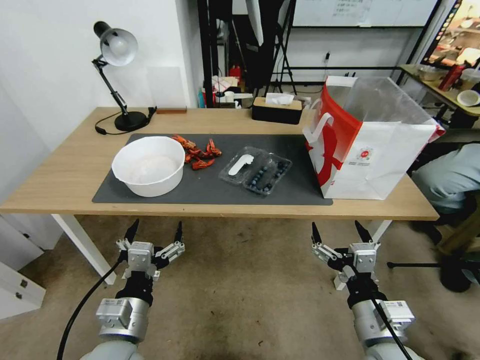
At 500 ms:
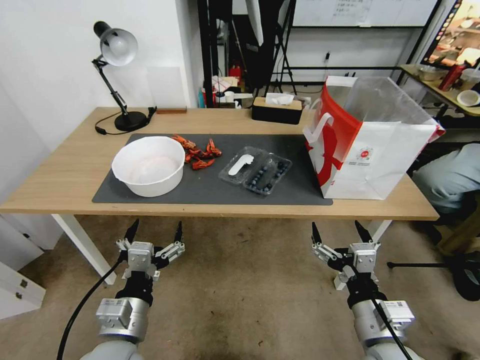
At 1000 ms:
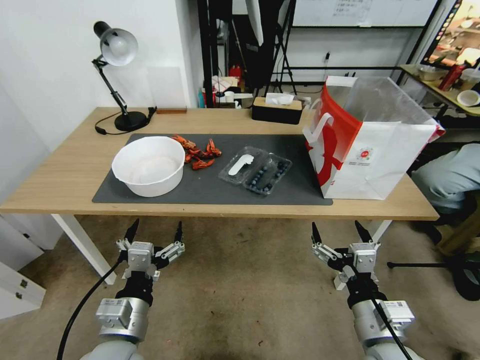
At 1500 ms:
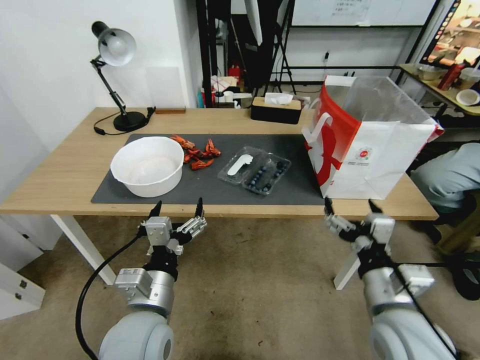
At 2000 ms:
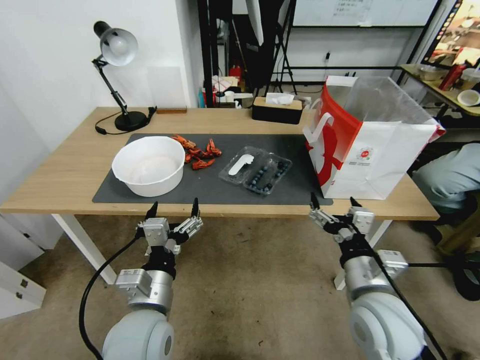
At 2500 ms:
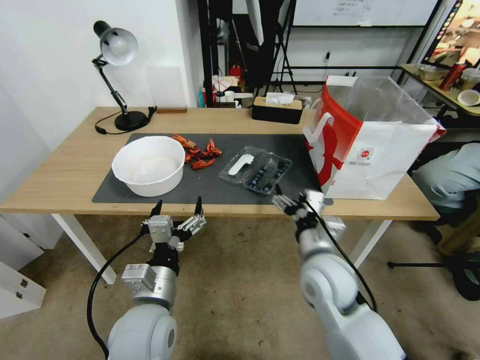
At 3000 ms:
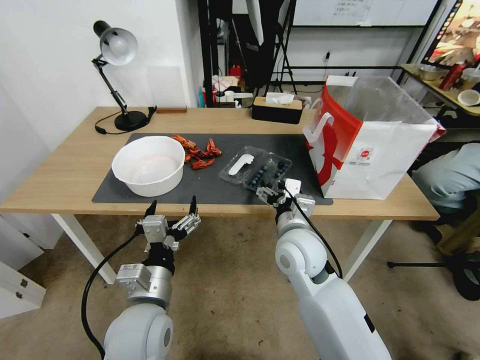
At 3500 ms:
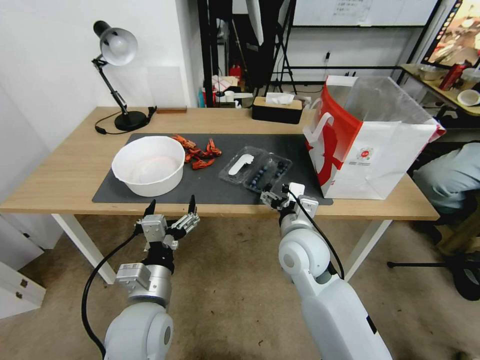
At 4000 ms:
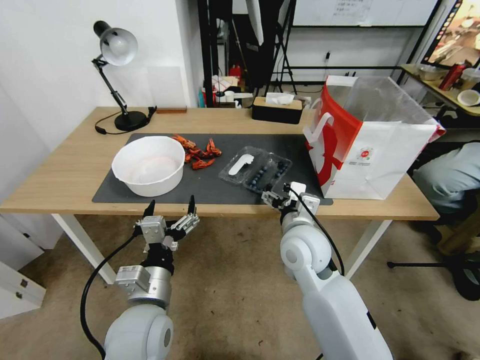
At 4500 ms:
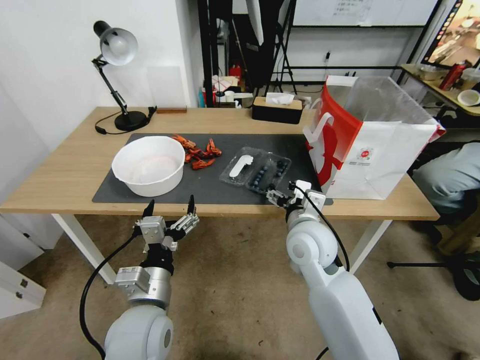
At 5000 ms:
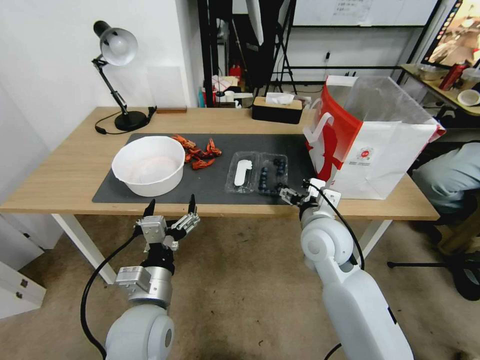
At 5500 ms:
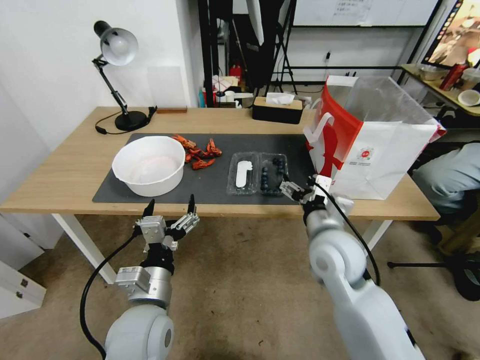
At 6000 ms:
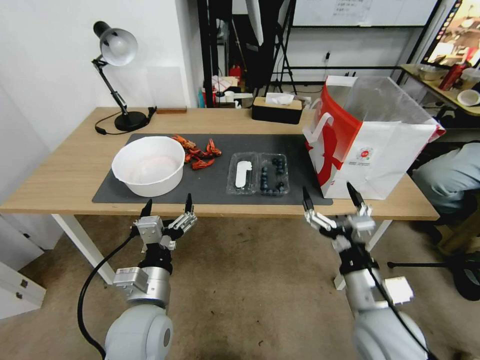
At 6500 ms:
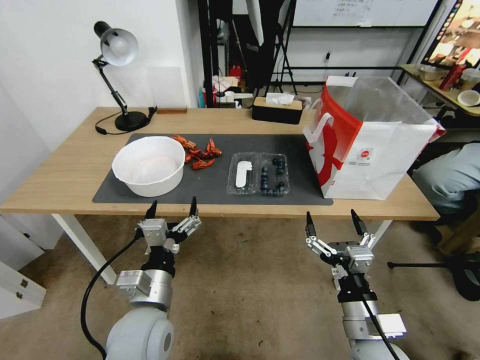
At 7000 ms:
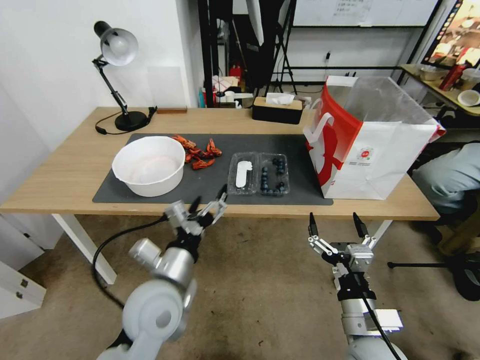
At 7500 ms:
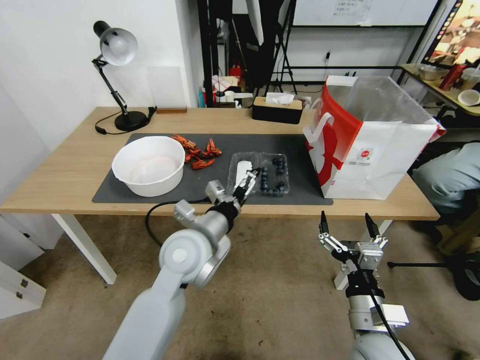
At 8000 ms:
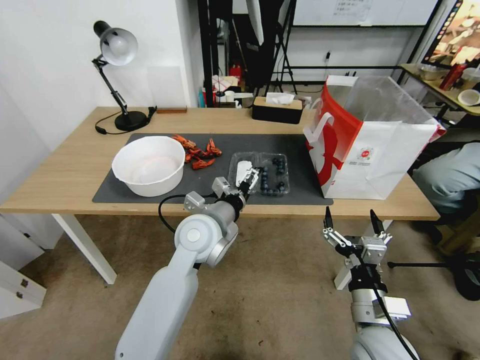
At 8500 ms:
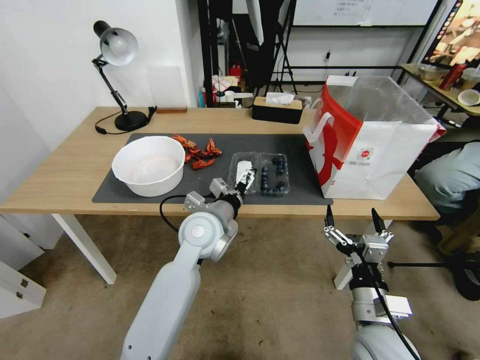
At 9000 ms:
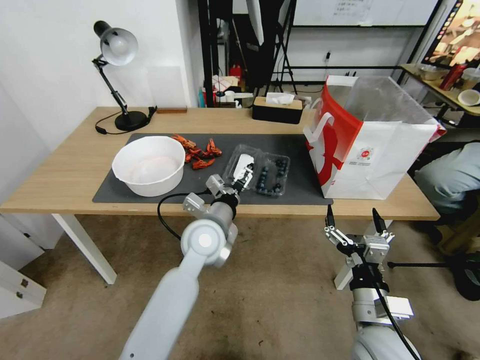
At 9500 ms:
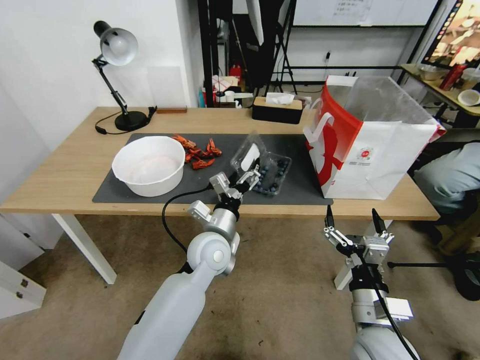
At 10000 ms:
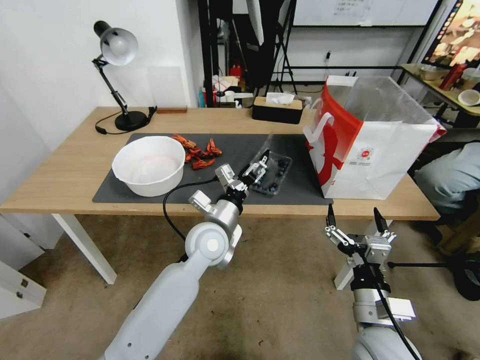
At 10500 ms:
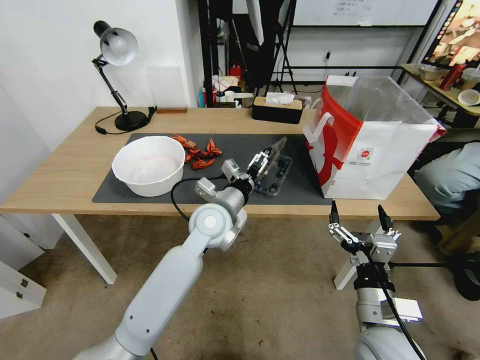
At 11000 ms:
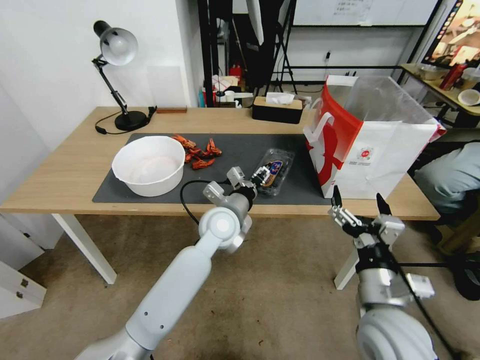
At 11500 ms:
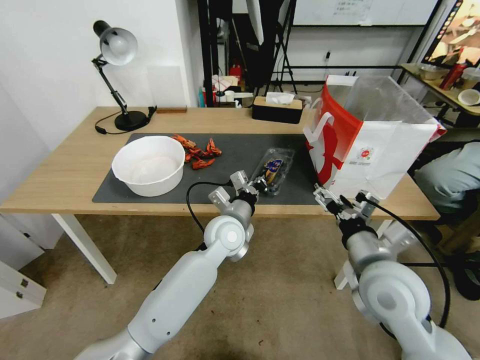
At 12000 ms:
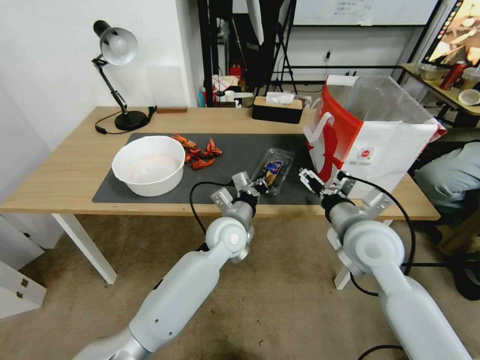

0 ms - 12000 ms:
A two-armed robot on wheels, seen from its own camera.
Task of the whole recording: Close the takeout container lid, then place the container into the takeout bag.
2000 ms - 4000 ms: The right gripper heads forward and to the left, covering approximately 15 cm.
4000 ms - 6000 ms: The right gripper shifts approximately 20 cm backward and to the right.
6000 ms - 8000 ms: The left gripper goes roughly 20 cm forward and to the right.
8000 ms - 10000 ms: The left gripper moves downward, some 5 cm.
10000 ms - 12000 ms: The left gripper moves roughly 5 cm, and closes. Meanwhile the right gripper is displaced forward and upward by about 20 cm.

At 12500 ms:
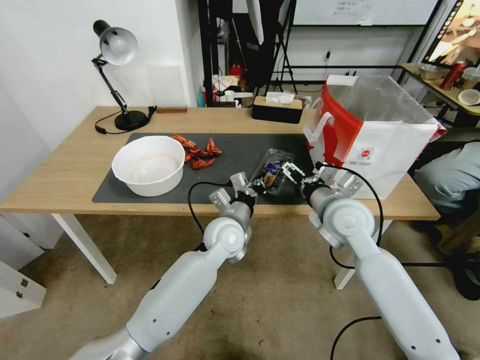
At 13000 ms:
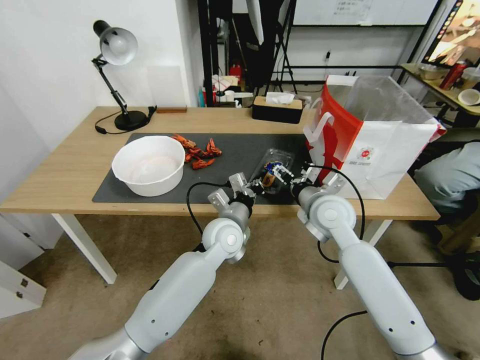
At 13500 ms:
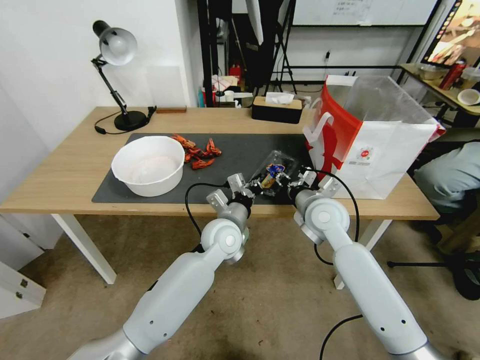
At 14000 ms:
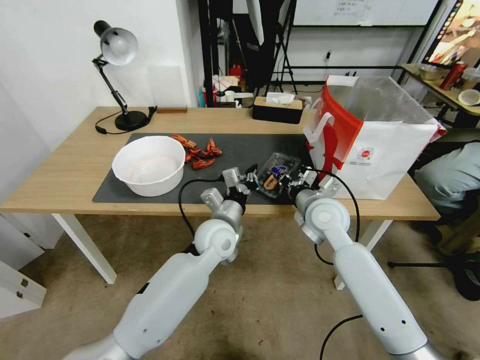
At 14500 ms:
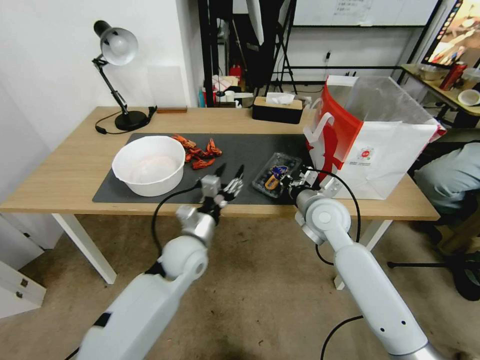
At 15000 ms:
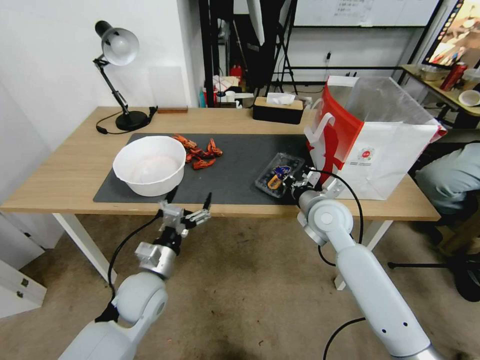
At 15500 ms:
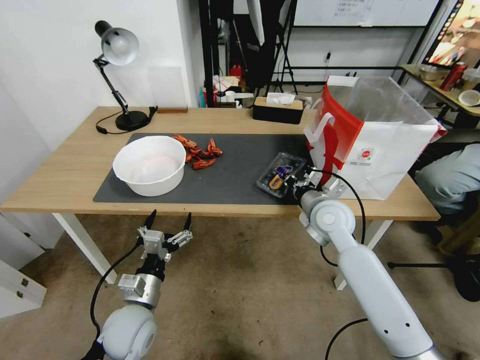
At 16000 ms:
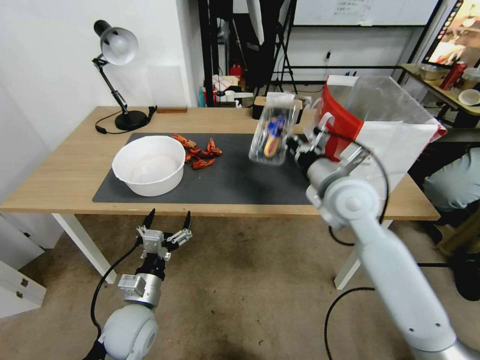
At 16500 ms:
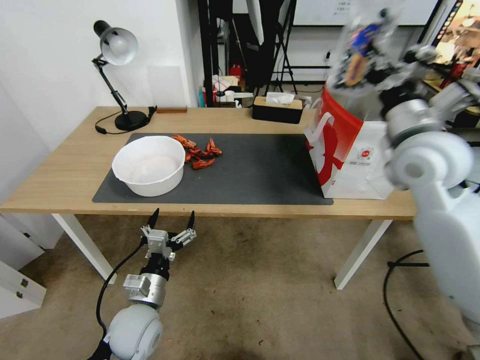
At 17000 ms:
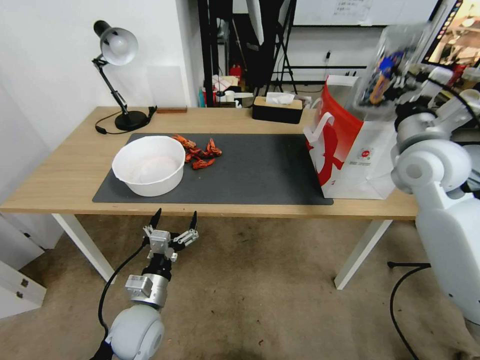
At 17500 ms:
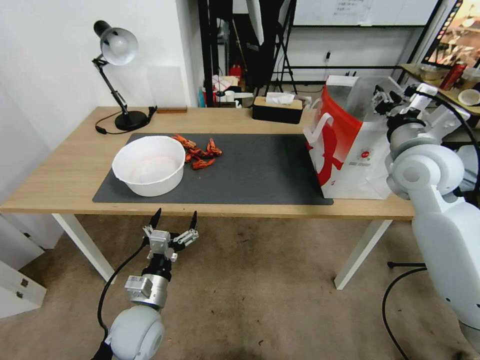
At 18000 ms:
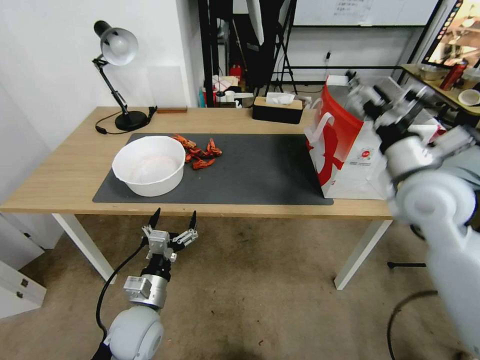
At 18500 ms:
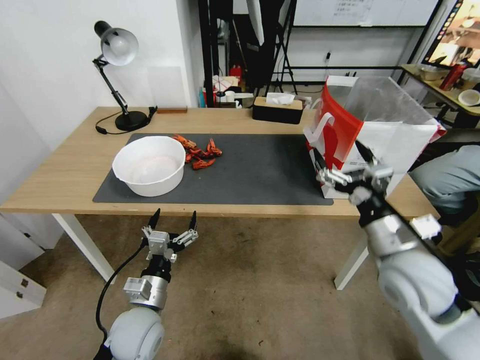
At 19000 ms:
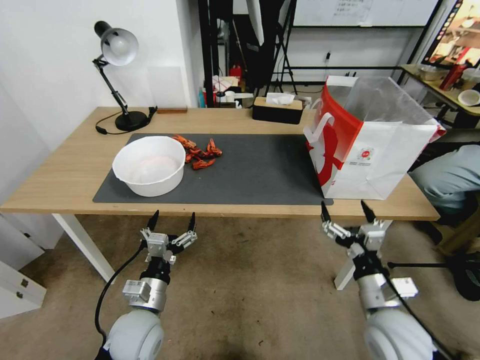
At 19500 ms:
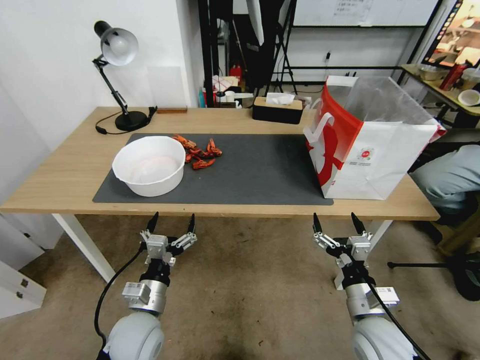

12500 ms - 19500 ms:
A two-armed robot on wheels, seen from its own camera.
Task of the whole recording: Close the takeout container lid, then place the container into the takeout bag.
12500 ms - 14500 ms: The left gripper is displaced to the left by approximately 10 cm, and opens its fingers. The right gripper shifts by approximately 5 cm, and closes.
14500 ms - 16000 ms: The left gripper heads backward, to the left and downward, covering roughly 15 cm, and opens. The right gripper travels upward by roughly 10 cm.
16000 ms - 17500 ms: The right gripper travels to the right and upward by roughly 15 cm, and opens its fingers.
17500 ms - 19500 ms: The right gripper moves downward and backward, about 35 cm, and opens its fingers.

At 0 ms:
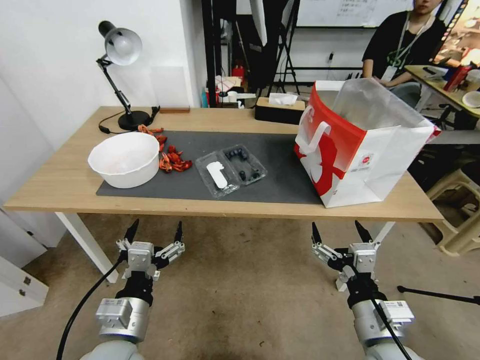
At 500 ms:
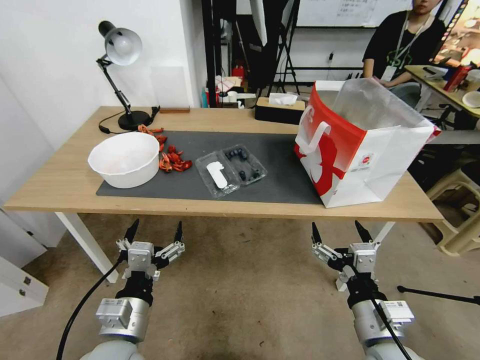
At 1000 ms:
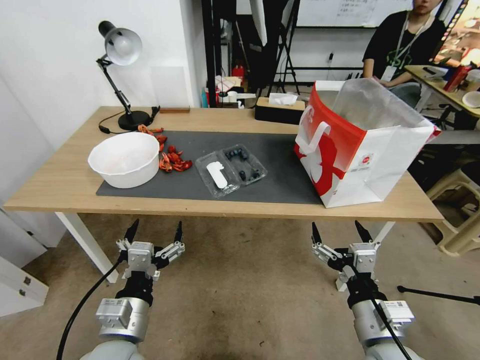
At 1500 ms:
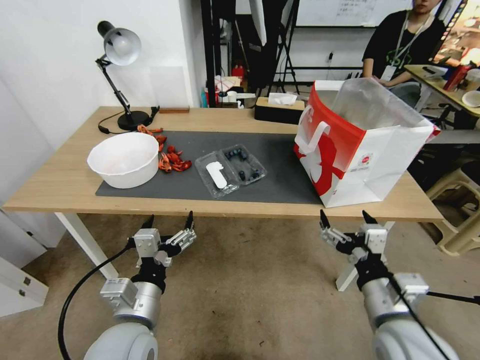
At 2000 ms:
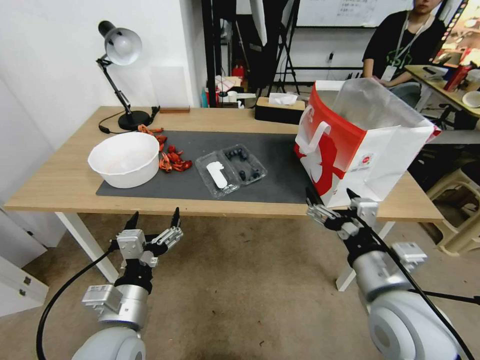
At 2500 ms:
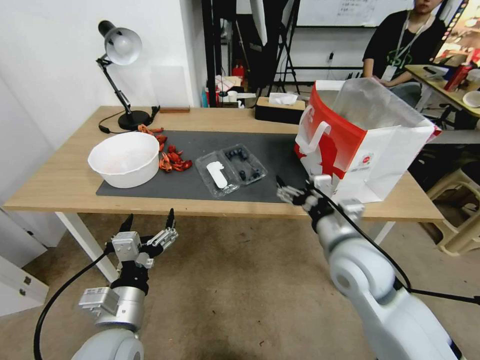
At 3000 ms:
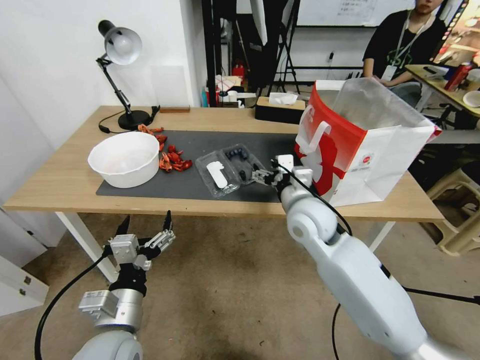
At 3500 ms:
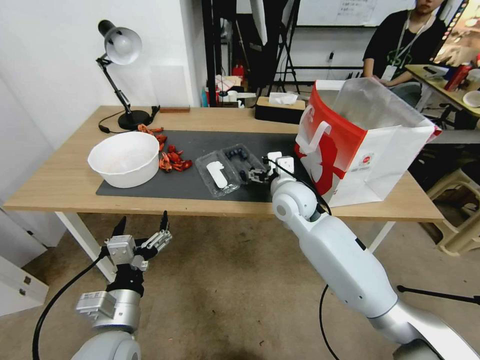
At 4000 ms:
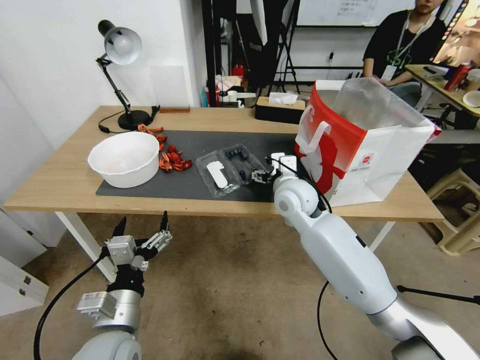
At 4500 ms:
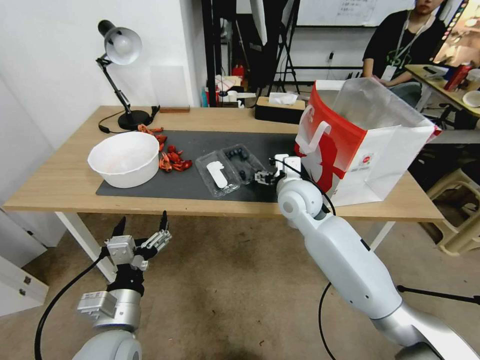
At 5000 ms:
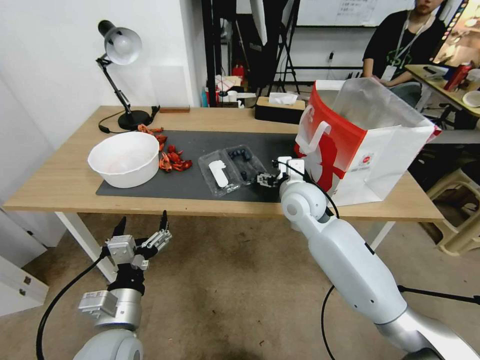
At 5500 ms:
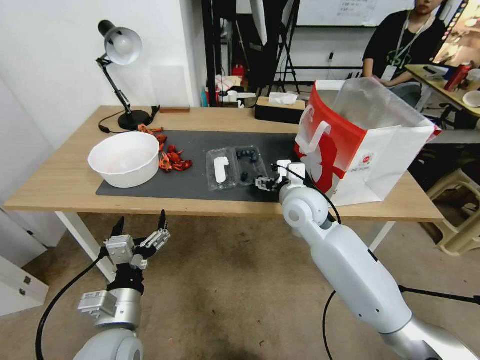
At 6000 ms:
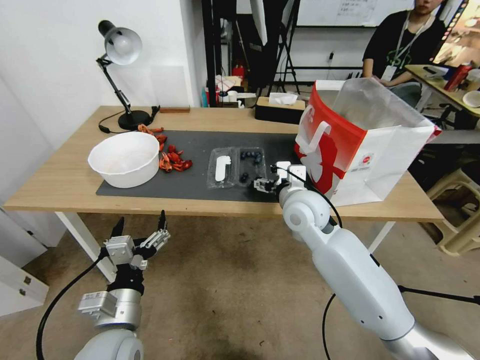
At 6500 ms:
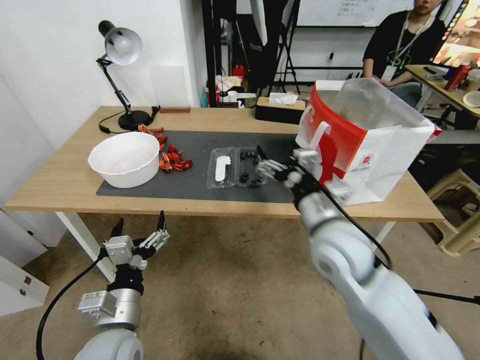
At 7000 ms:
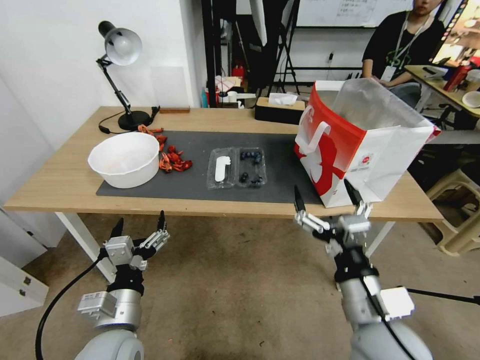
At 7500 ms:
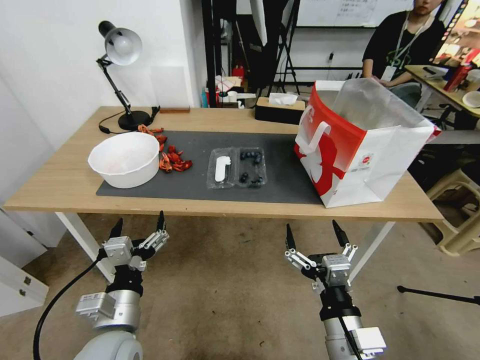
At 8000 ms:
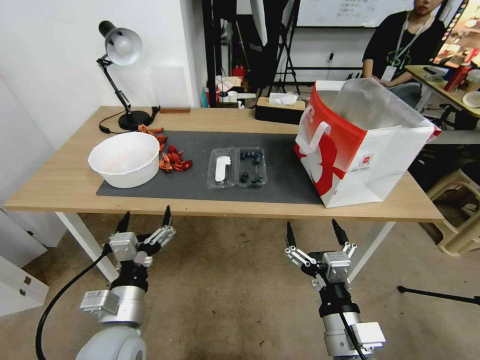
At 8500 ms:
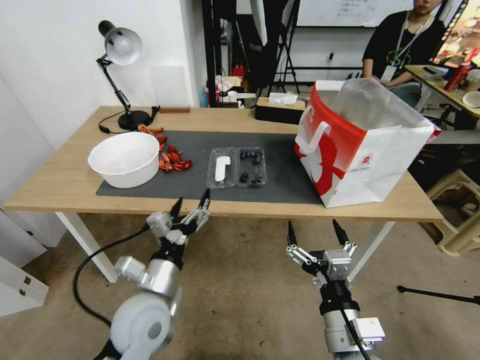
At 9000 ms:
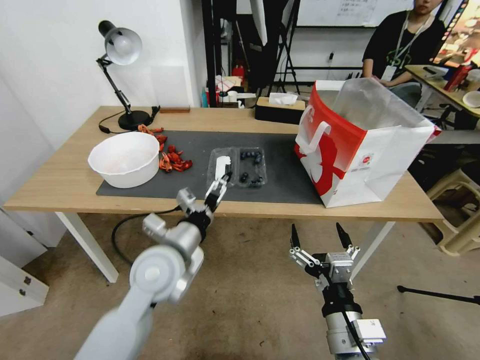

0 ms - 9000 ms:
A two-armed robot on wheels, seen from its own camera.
Task of the whole recording: Close the takeout container lid, then place the container into the takeout bag.
2000 ms - 4500 ms: The right gripper shifts approximately 25 cm forward and to the left.
4500 ms - 7000 ms: The right gripper is displaced backward by roughly 30 cm.
7000 ms - 9000 ms: The left gripper travels forward and to the right by approximately 10 cm, while the right gripper moves downward, roughly 5 cm.
